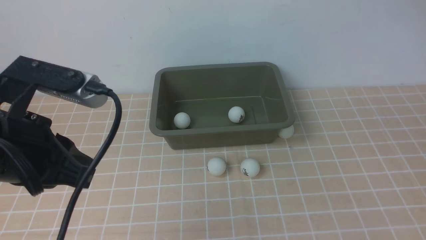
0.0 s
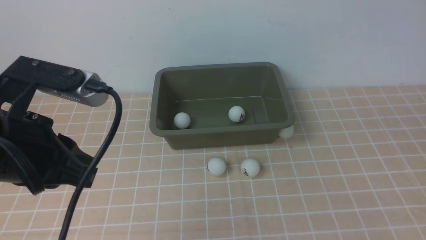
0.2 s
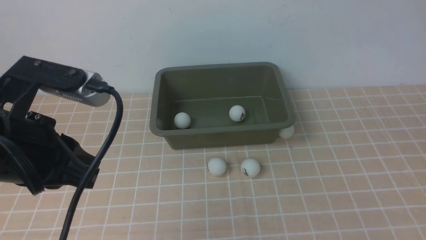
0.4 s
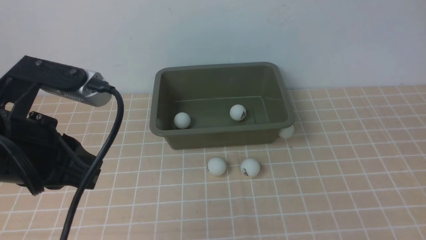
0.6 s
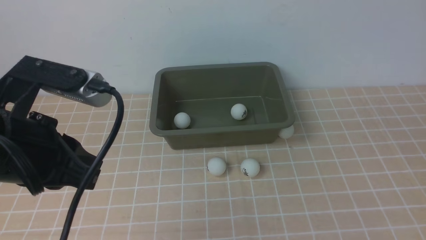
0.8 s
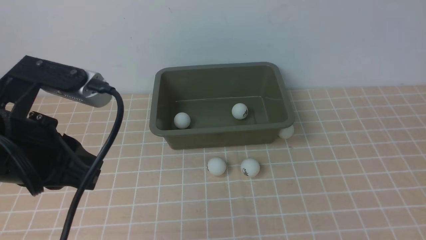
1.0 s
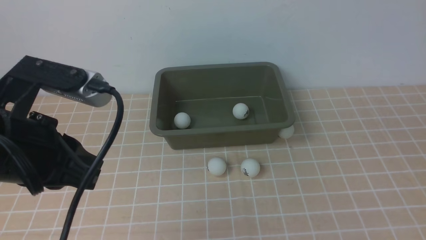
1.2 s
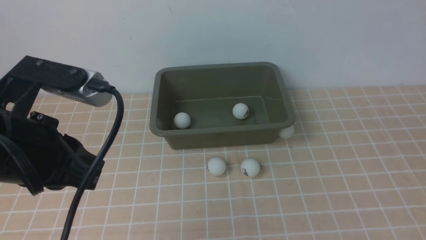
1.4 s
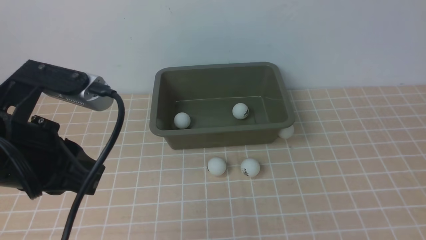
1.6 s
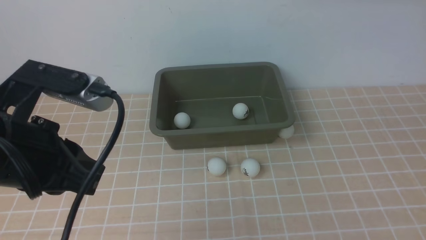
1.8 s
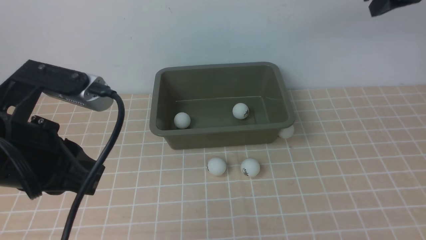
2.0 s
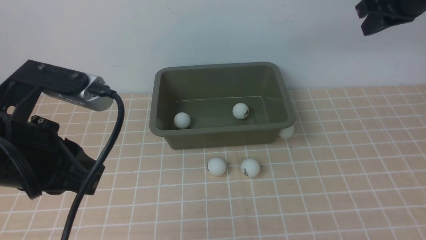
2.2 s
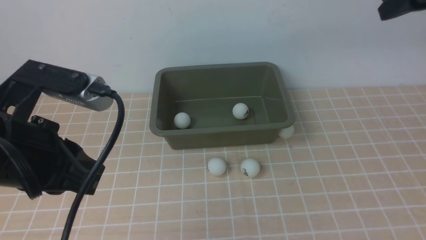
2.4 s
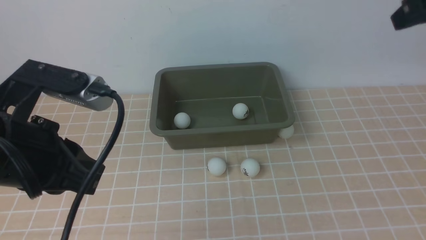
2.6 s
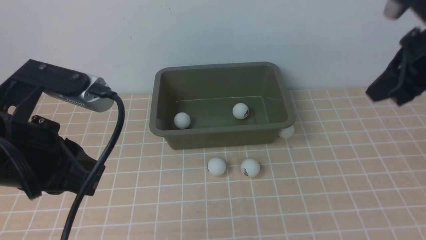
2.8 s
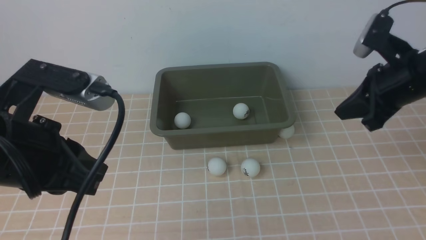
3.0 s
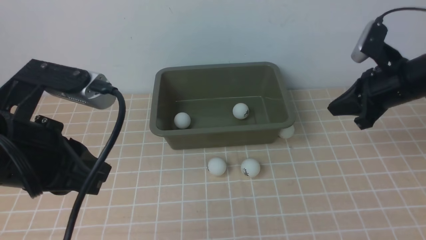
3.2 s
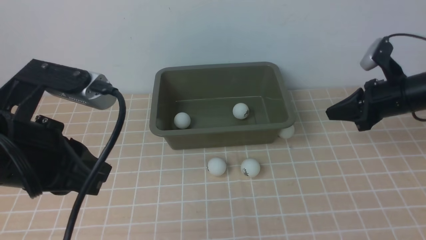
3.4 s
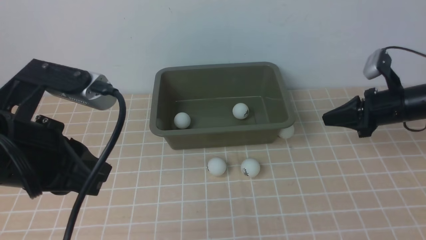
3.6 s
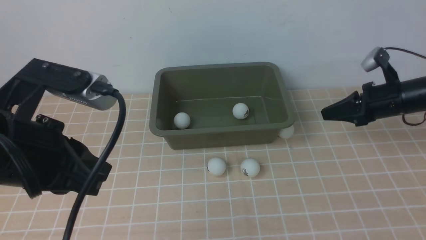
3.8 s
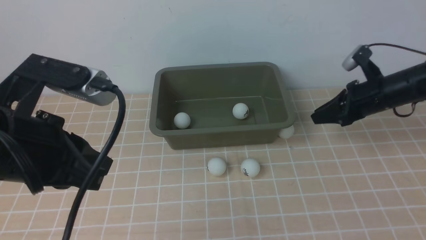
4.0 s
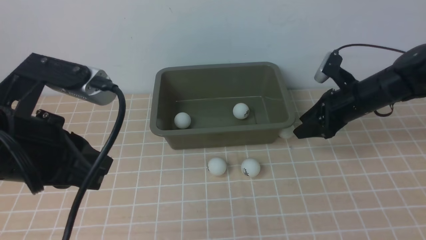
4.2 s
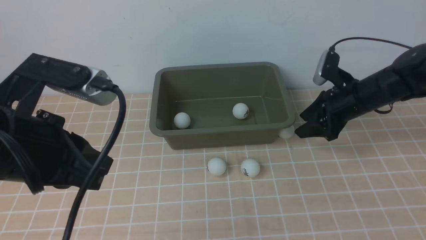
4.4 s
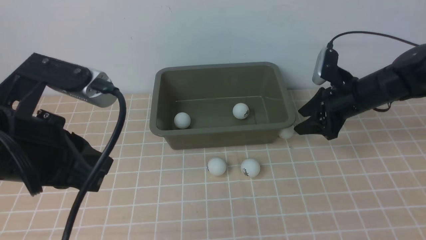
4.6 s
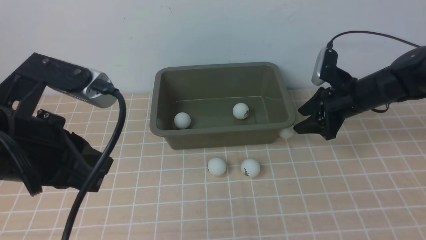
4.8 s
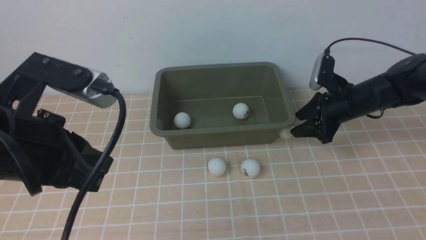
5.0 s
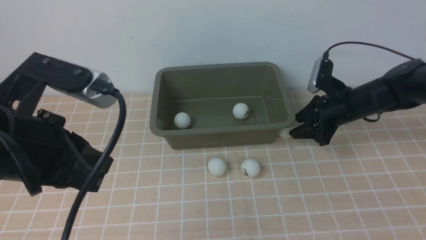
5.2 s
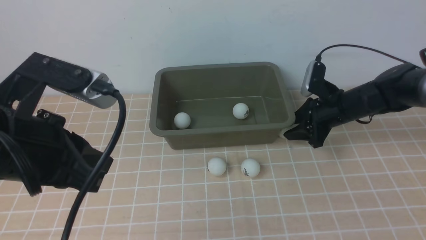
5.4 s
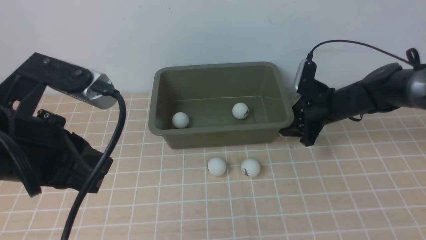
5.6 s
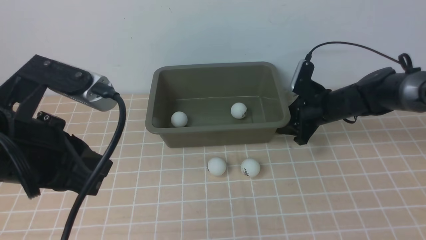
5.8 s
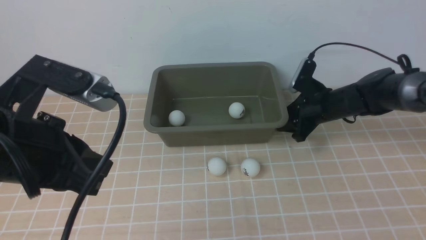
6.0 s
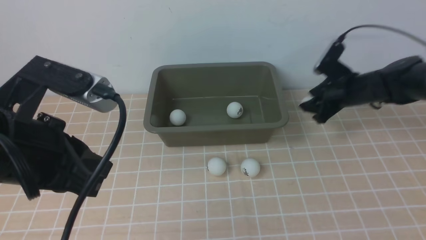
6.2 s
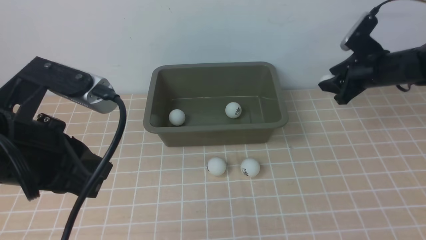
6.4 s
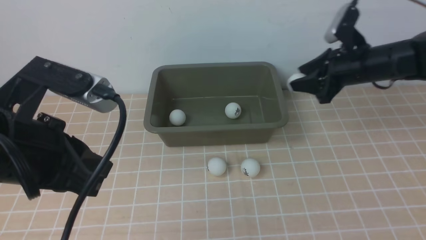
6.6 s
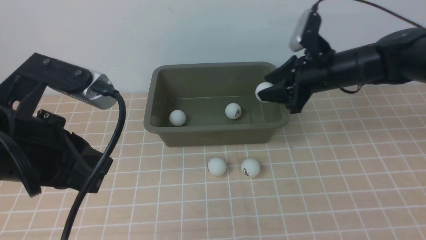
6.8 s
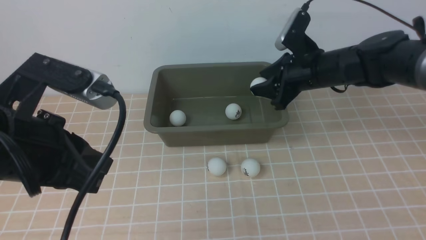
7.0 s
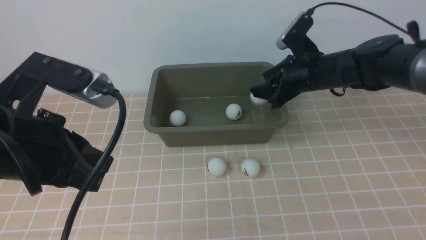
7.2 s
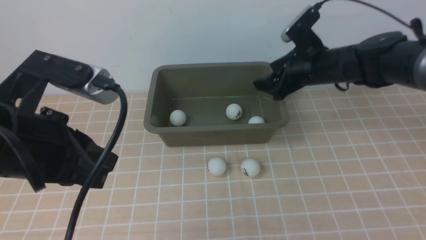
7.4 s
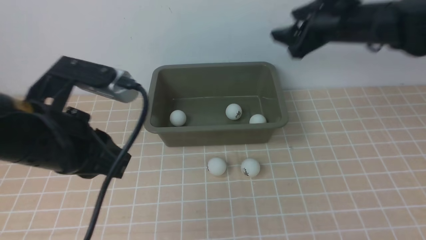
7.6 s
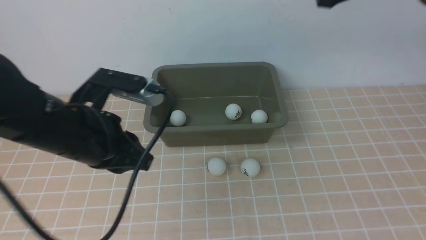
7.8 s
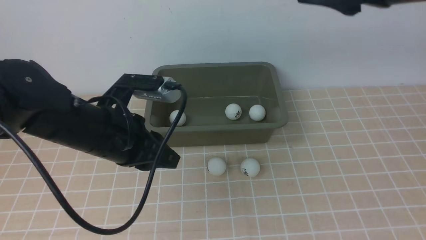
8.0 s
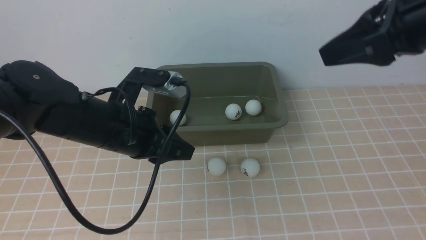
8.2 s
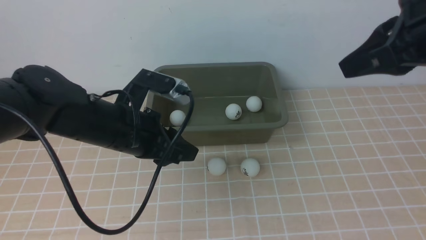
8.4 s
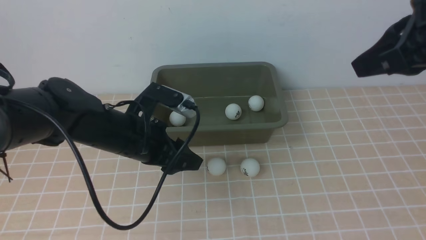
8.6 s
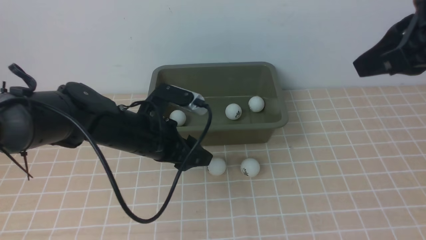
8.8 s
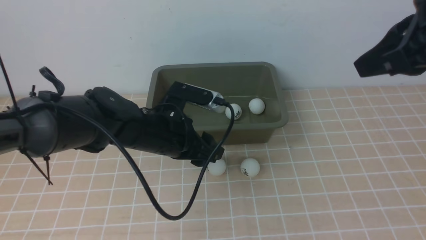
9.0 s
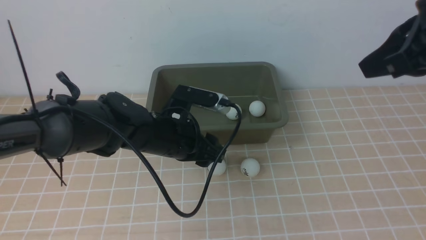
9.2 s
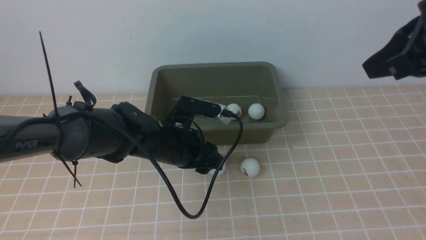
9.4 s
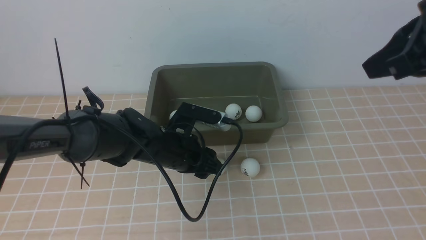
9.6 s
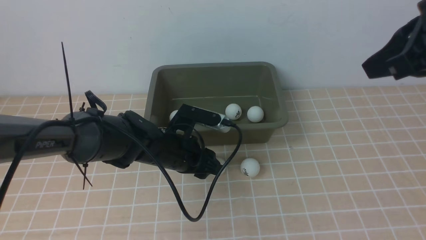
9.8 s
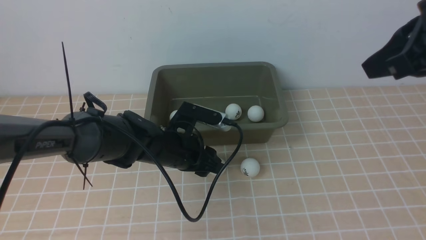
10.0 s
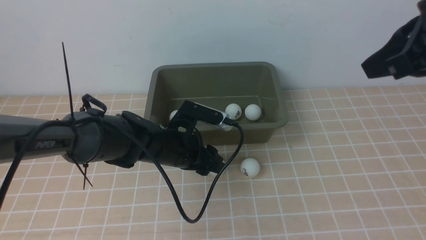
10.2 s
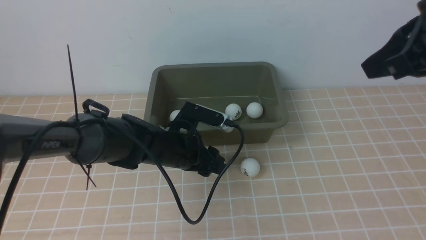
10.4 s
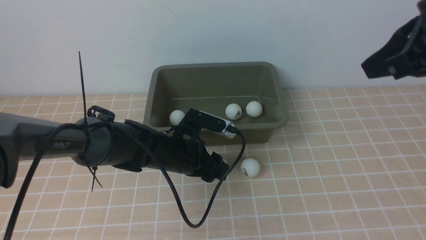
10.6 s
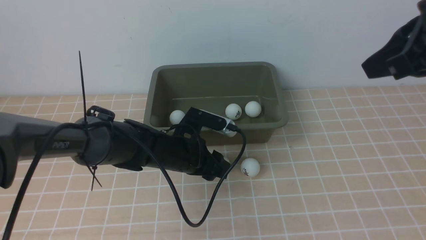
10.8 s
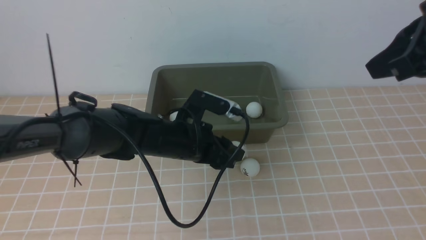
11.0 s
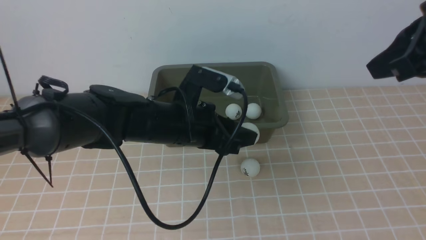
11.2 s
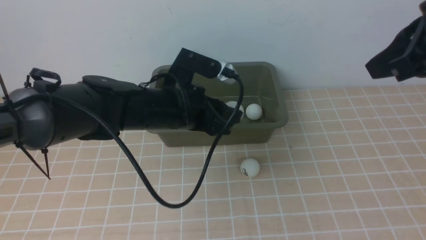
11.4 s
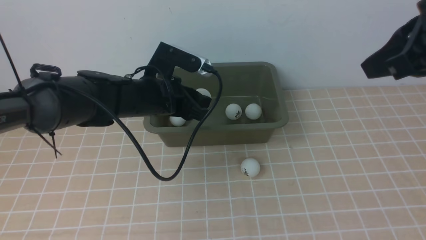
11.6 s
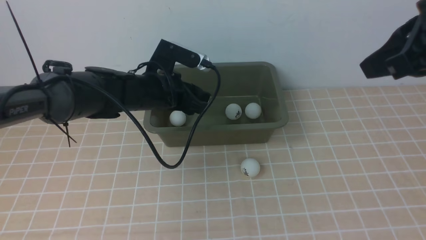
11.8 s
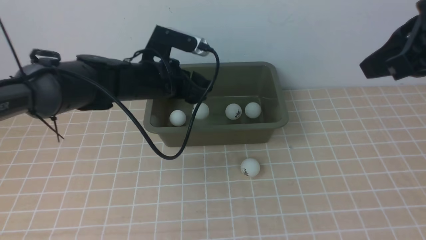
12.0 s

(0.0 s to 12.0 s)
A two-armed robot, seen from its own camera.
Step, 0.0 s - 6.2 s: use the right arm to clamp the table tennis ball closest to it.
Step, 6.6 s - 7.4 s: use the right arm to put the table tennis ball into the box.
Step, 7.6 s - 11.0 s: use the left arm to clamp the table tennis ball closest to it.
1.6 s - 3.0 s: The right gripper goes about 20 cm downward.
3.0 s - 4.4 s: The right gripper travels downward and forward by some 15 cm, and opens its fingers.
4.4 s - 6.0 s: The right gripper moves approximately 5 cm.
6.0 s - 7.6 s: The right gripper moves upward, some 20 cm.
7.6 s - 9.0 s: The right gripper heads backward and upward, covering approximately 15 cm, and closes its fingers. Meanwhile the left gripper moves downward, forward and to the right, some 15 cm, and opens.
9.0 s - 10.4 s: The left gripper heads downward, covering some 5 cm.
10.4 s - 12.0 s: The left gripper travels upward by roughly 15 cm.

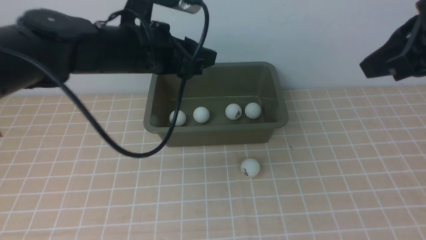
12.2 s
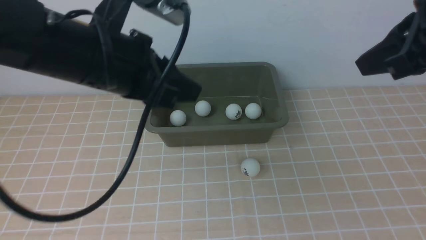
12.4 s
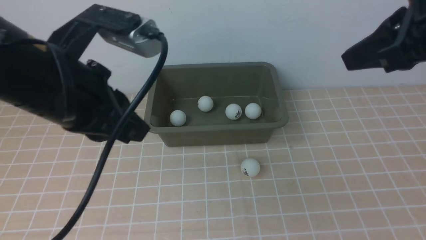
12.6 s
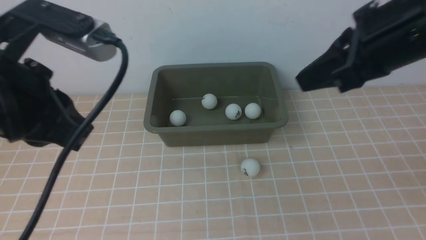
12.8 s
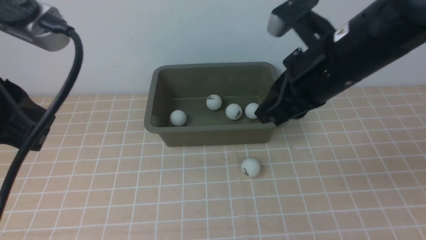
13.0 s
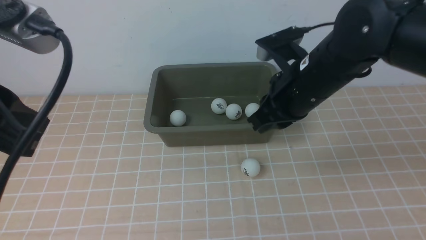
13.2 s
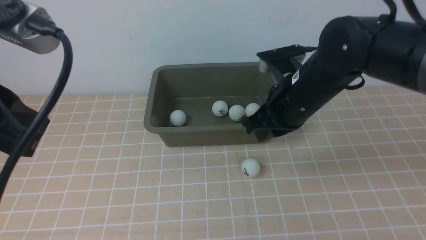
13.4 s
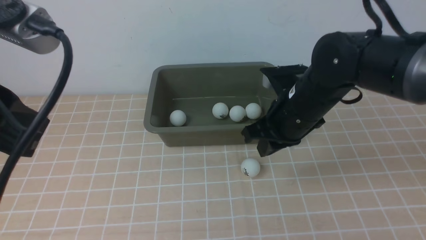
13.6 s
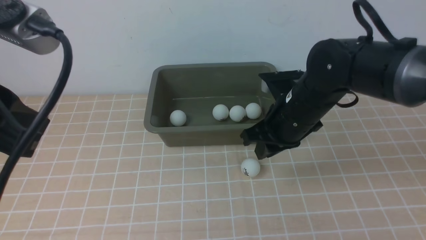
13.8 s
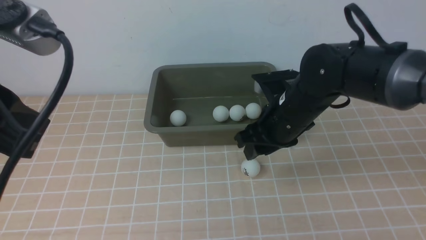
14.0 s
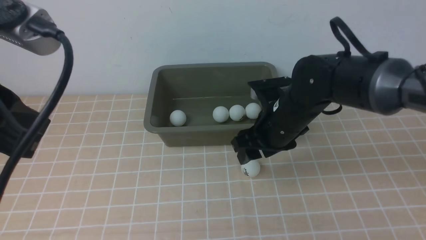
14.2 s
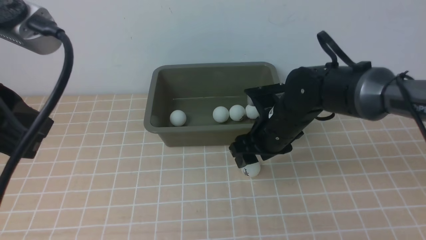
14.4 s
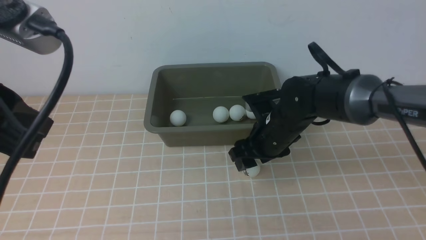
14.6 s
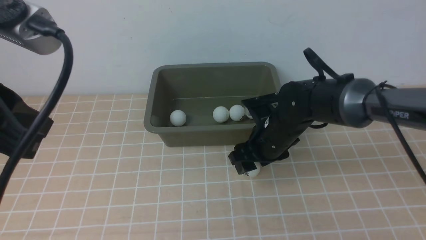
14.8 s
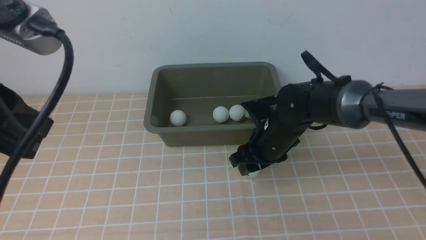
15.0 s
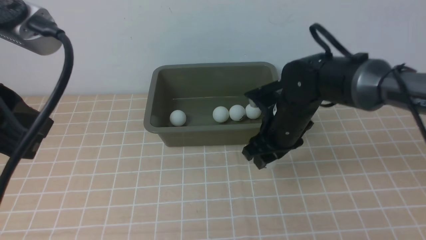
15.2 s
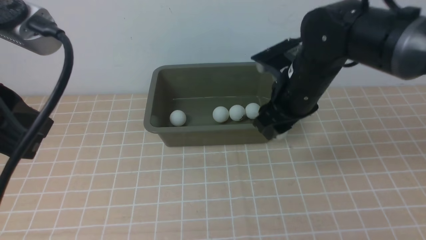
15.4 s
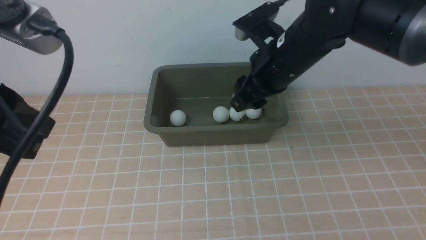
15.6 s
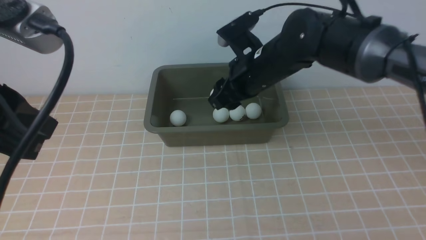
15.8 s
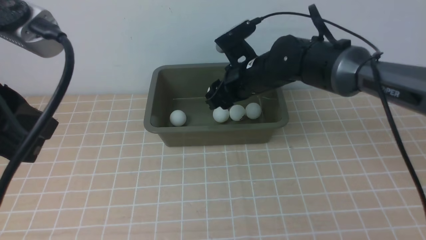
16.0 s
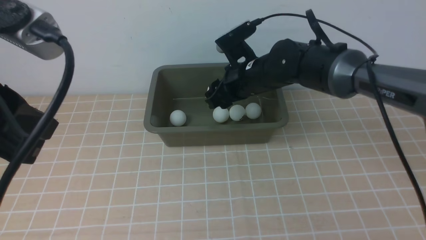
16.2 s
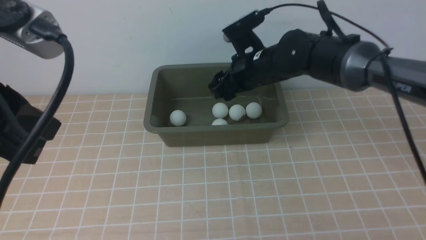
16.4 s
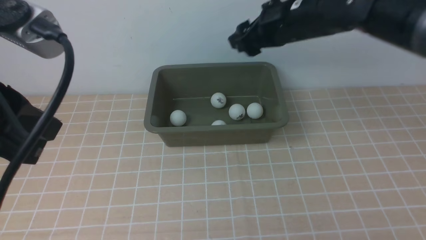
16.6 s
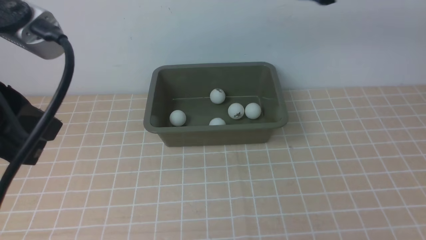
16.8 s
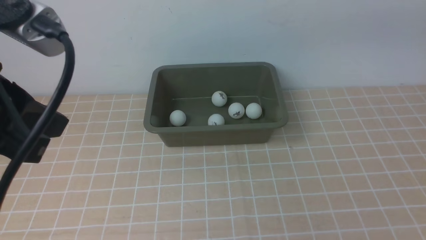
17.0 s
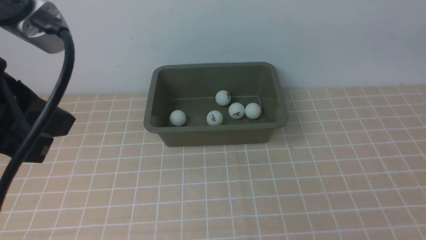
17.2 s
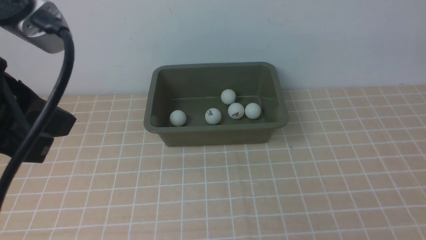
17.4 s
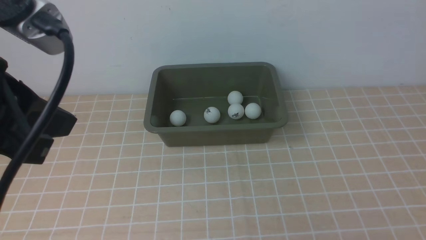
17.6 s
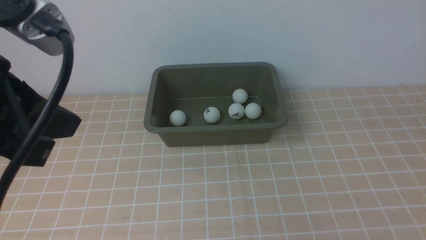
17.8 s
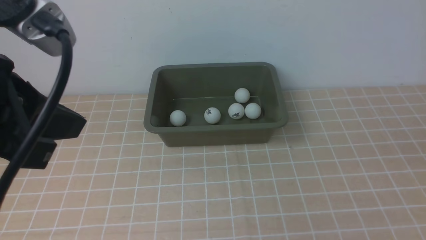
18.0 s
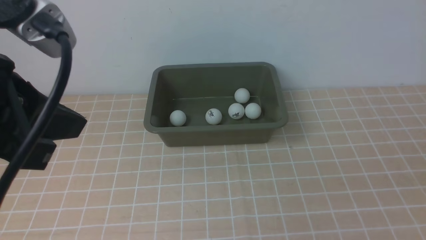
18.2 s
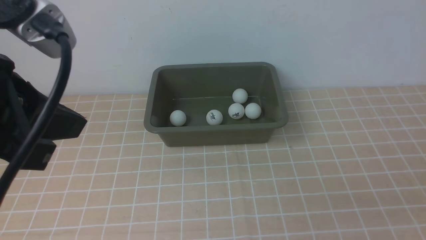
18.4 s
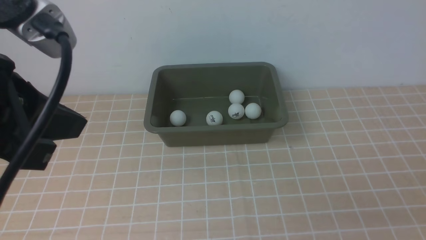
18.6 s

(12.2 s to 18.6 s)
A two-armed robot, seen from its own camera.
Step, 12.4 s - 15.2 s: use the right arm to clamp the table tennis ball closest to it.
Step, 15.6 s - 16.6 s: use the right arm to put the table tennis ball into the box.
12.2 s - 13.8 s: The right gripper heads downward, to the left and forward, covering roughly 25 cm, and opens up. The left gripper shifts approximately 20 cm backward, to the left and upward, and closes up.
13.8 s - 15.4 s: The right gripper travels downward and back again, some 10 cm each way, and opens.
15.4 s - 17.0 s: The right gripper is displaced upward and to the right by some 25 cm, and closes its fingers.
